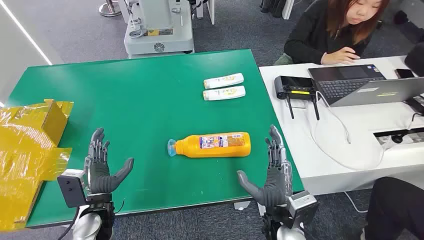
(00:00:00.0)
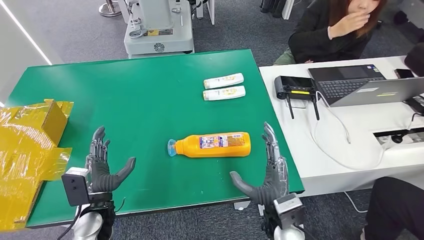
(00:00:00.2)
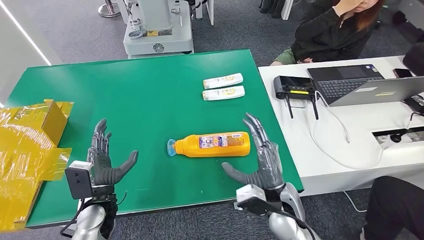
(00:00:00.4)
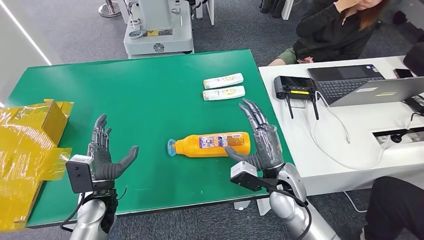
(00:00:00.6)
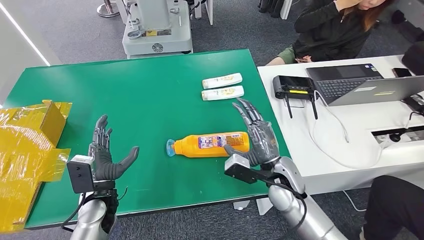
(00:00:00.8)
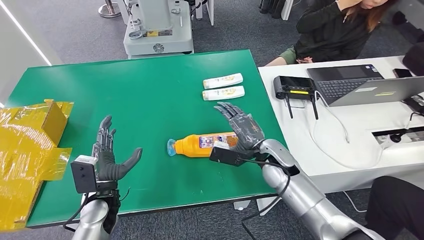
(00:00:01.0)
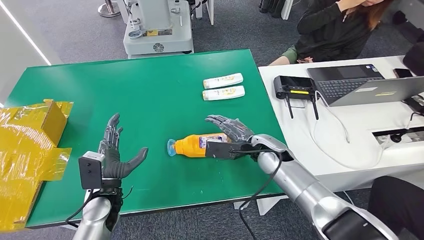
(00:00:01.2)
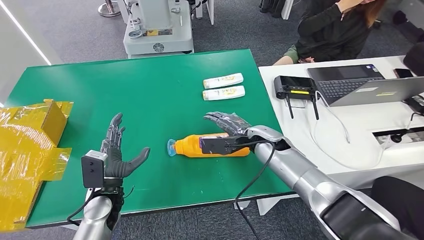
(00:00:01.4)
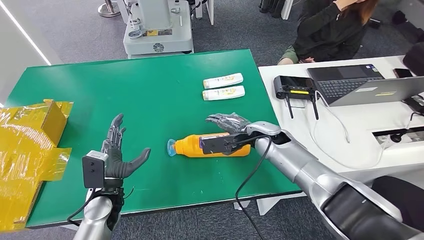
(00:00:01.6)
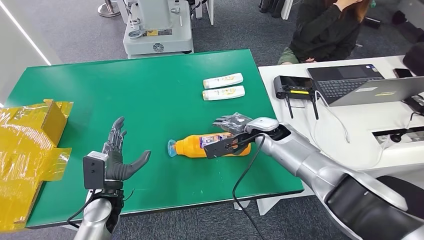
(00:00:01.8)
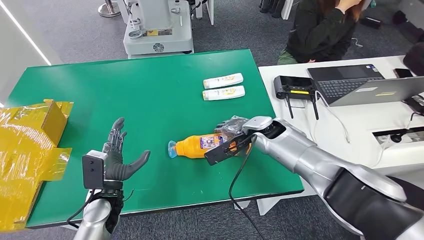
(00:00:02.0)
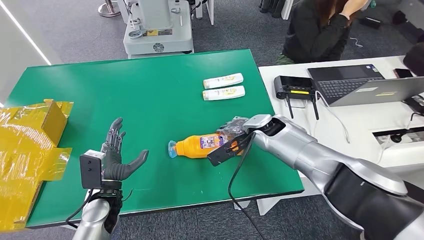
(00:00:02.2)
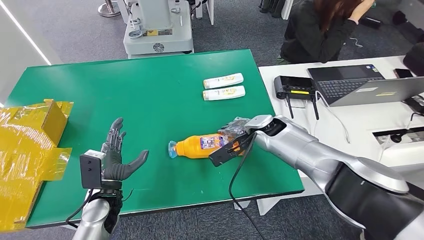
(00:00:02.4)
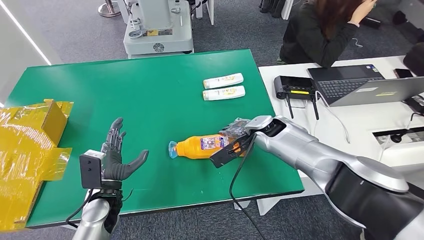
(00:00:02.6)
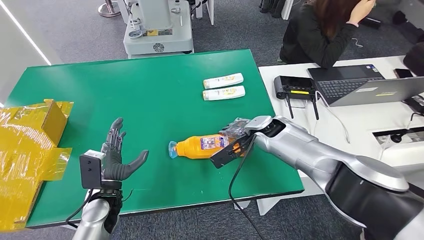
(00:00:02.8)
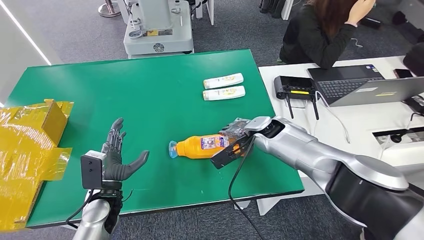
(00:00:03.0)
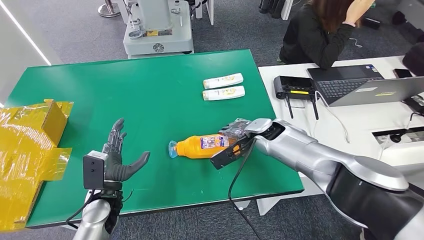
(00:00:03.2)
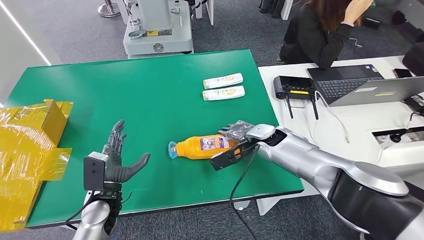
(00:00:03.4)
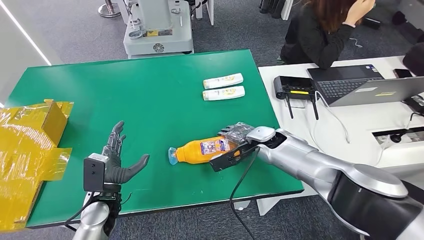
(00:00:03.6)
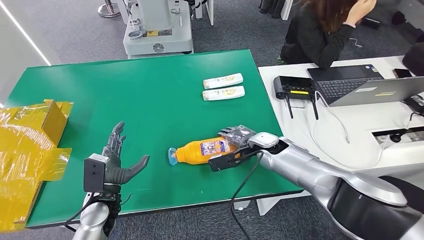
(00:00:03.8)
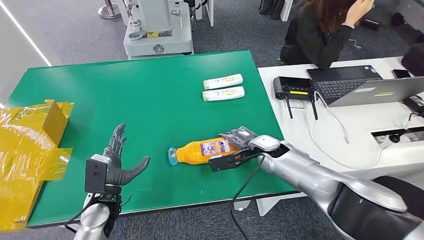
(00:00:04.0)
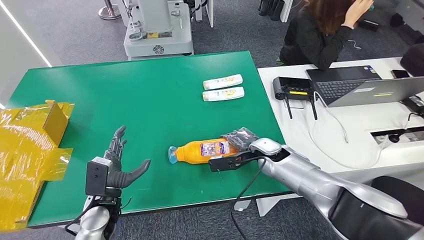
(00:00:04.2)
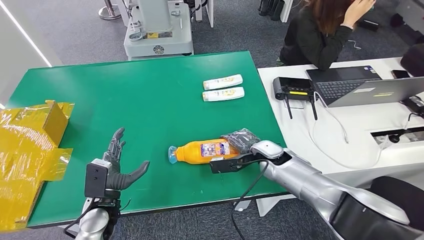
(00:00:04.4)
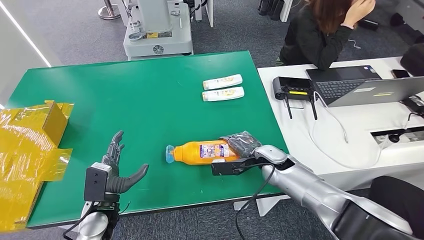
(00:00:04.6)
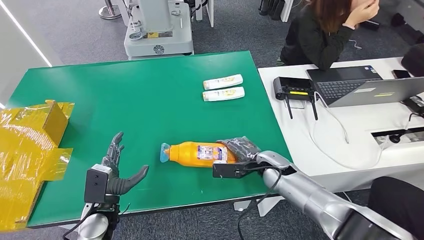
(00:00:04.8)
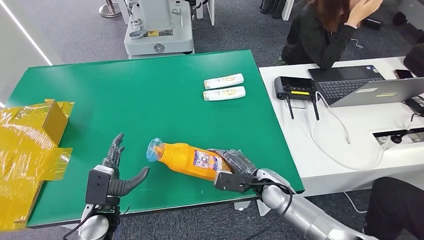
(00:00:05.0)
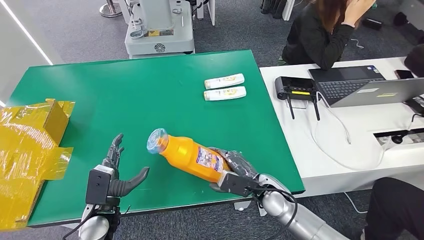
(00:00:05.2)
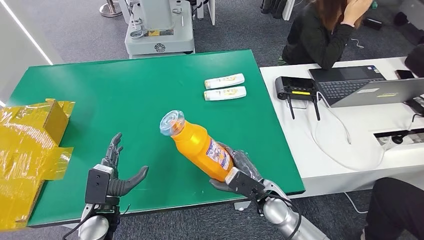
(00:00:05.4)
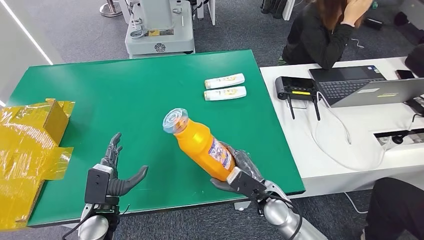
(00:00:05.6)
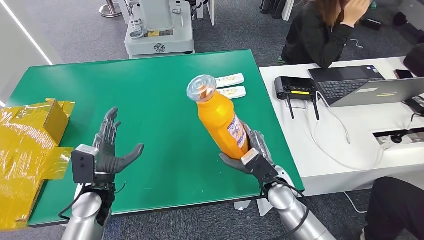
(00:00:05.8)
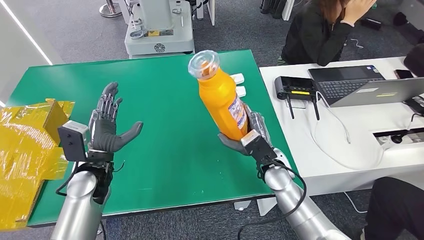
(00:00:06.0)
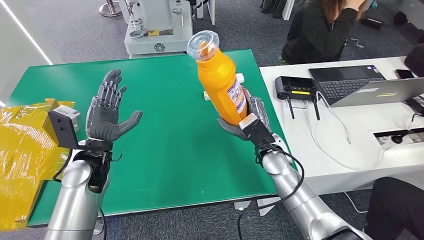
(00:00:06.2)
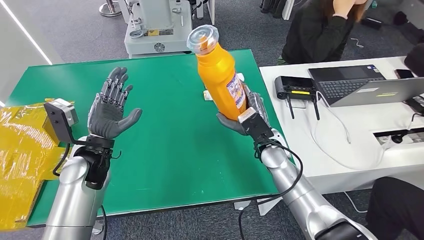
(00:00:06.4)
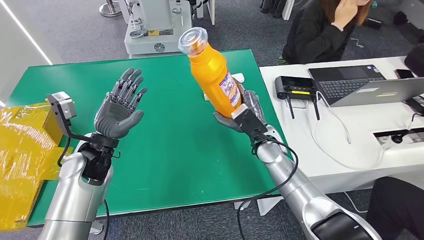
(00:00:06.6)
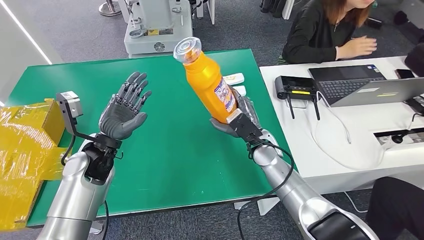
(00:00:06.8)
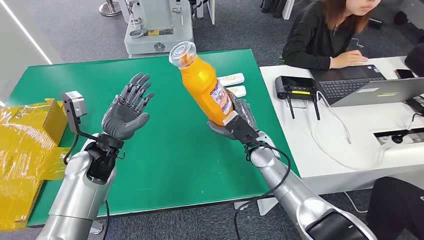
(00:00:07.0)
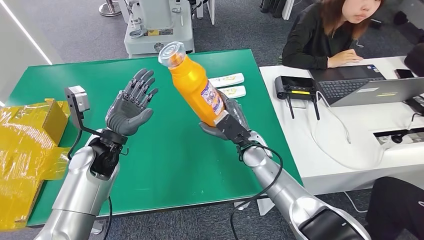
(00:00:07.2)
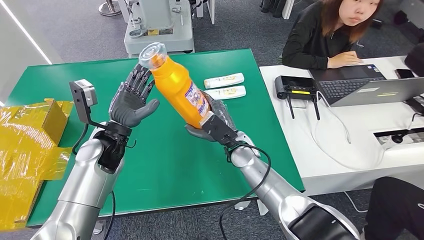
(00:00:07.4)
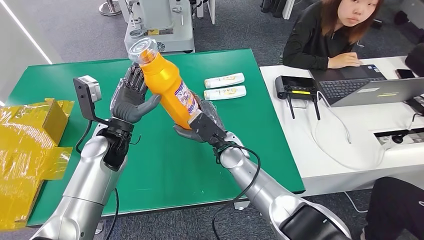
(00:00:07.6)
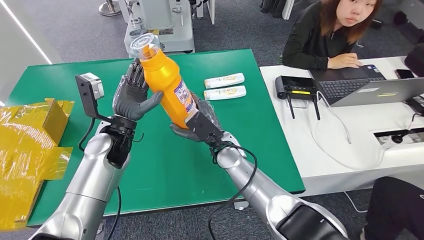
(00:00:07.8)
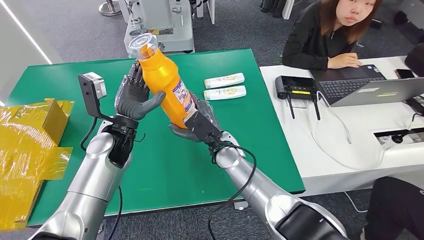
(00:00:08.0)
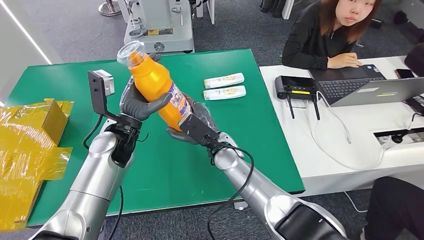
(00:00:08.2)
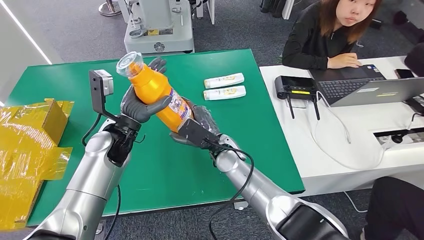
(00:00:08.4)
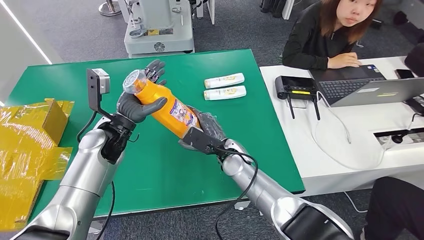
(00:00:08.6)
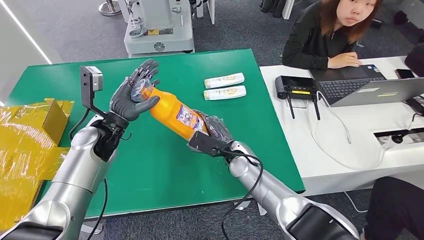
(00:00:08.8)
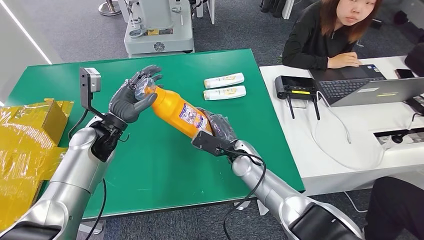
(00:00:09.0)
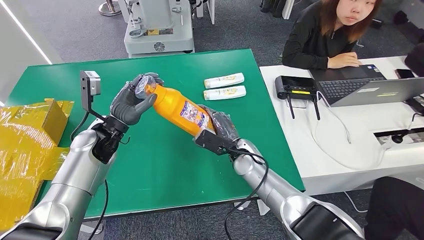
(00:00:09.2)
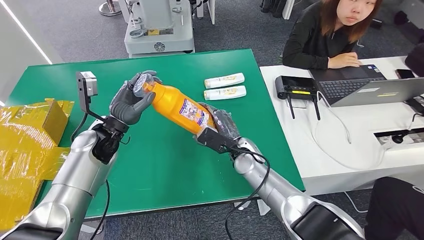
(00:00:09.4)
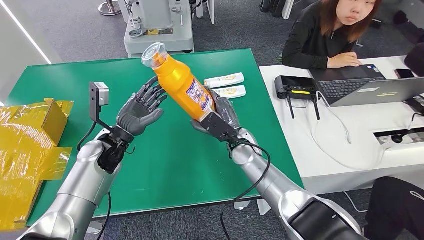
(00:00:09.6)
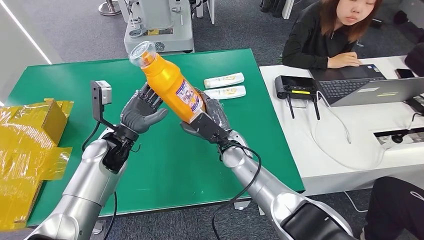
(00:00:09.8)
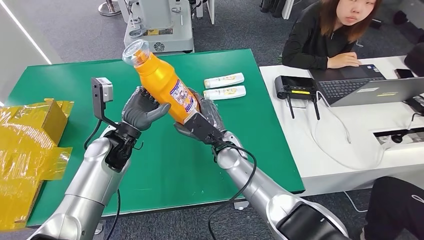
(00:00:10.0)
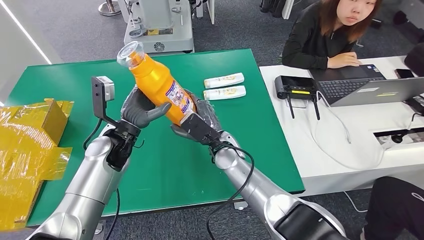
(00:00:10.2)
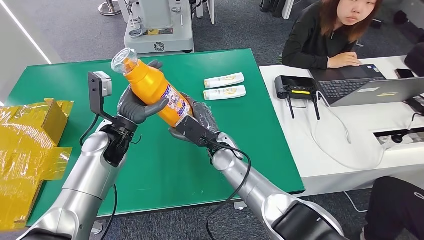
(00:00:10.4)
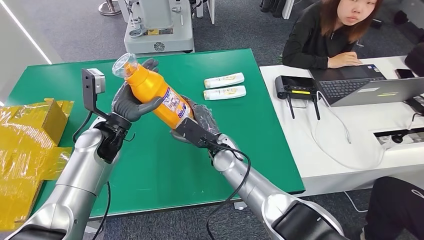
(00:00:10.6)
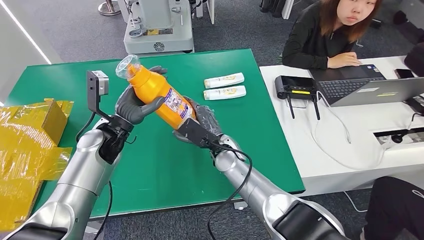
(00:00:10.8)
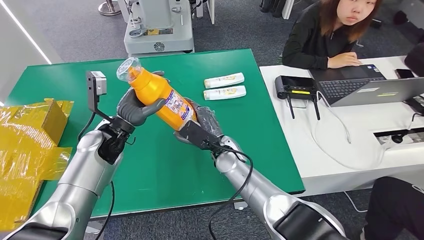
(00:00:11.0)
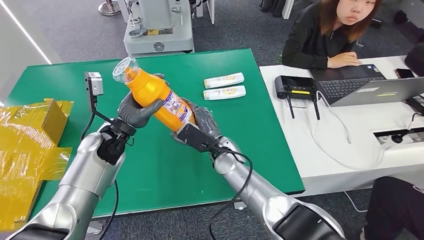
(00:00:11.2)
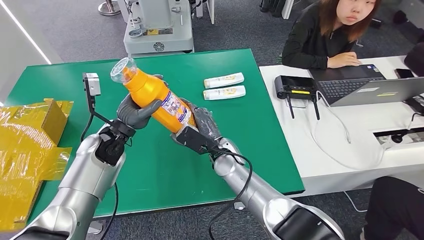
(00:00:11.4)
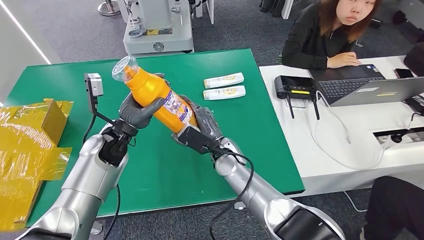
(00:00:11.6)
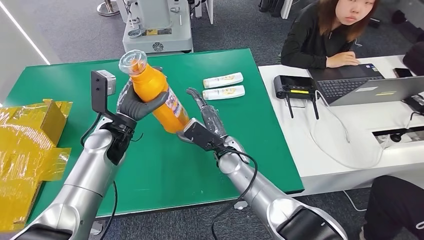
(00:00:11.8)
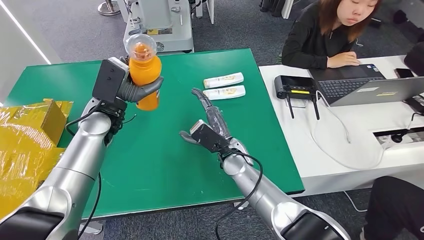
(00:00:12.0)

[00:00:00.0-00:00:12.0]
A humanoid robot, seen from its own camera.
Step, 00:00:00.0 to 00:00:05.2: Pick up the bottle from the table.
00:00:07.6 to 00:00:09.0: The left hand shifts by approximately 5 cm. The right hand shifts by some 5 cm.
00:00:09.0 to 00:00:10.4: The right hand heads to the left, covering approximately 5 cm.
00:00:10.4 to 00:00:12.0: The left hand ends up approximately 5 cm from where it was.

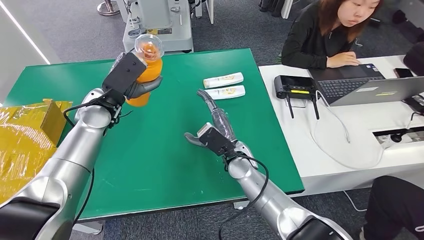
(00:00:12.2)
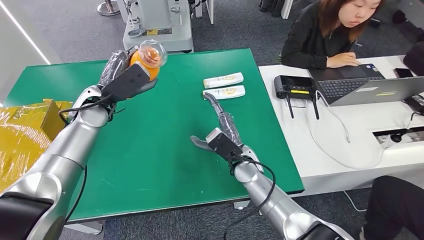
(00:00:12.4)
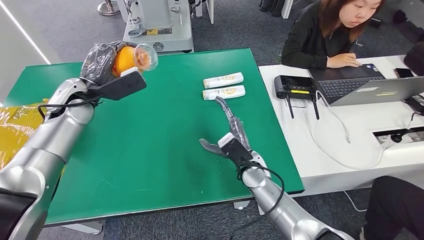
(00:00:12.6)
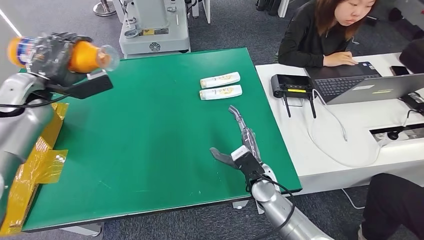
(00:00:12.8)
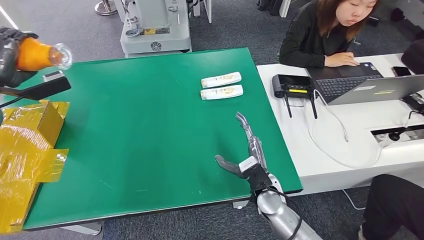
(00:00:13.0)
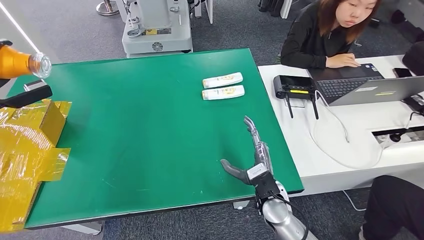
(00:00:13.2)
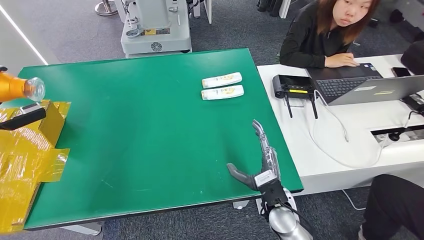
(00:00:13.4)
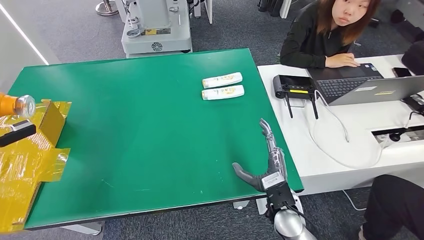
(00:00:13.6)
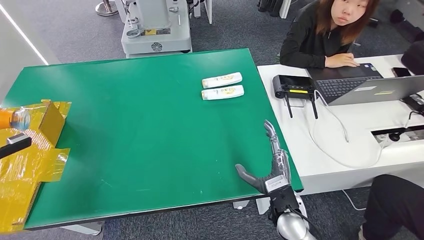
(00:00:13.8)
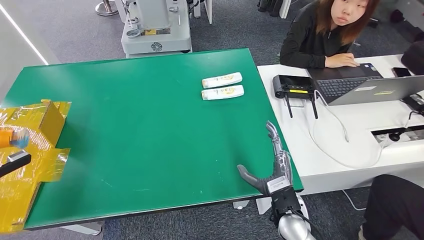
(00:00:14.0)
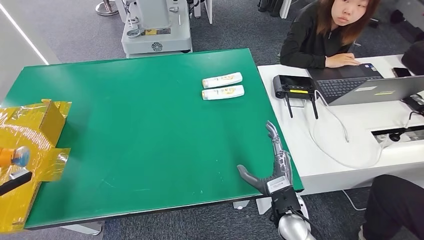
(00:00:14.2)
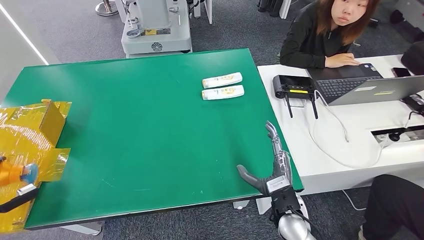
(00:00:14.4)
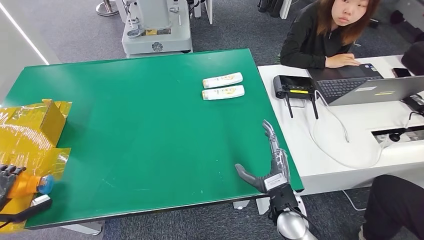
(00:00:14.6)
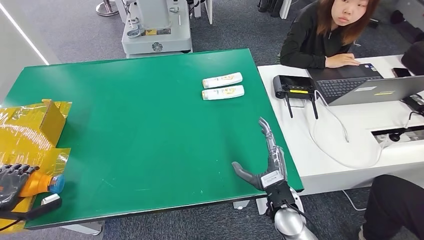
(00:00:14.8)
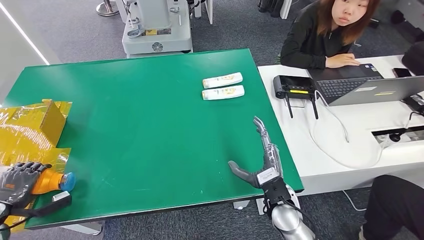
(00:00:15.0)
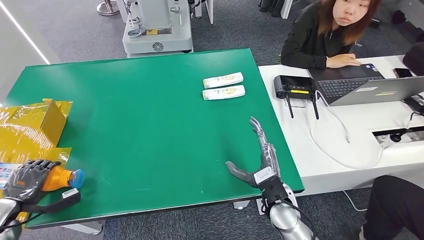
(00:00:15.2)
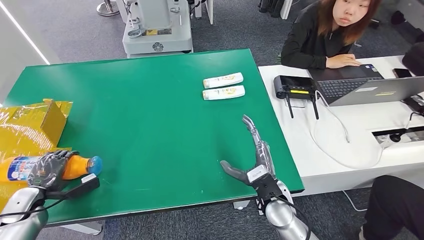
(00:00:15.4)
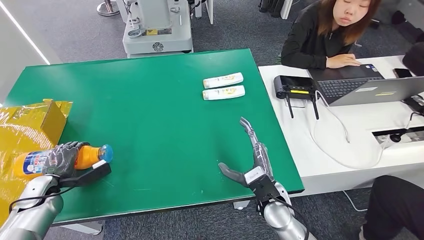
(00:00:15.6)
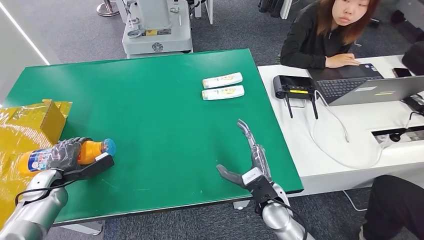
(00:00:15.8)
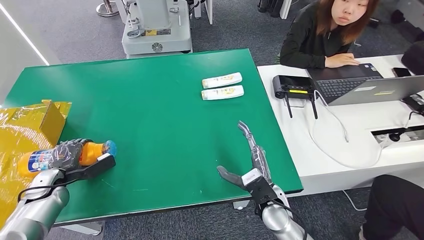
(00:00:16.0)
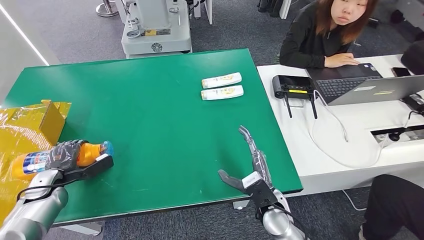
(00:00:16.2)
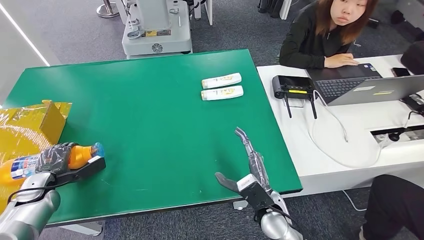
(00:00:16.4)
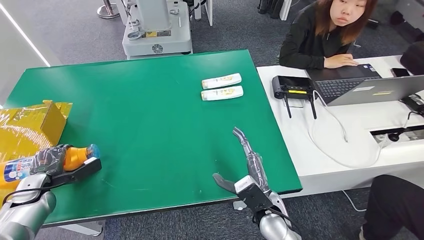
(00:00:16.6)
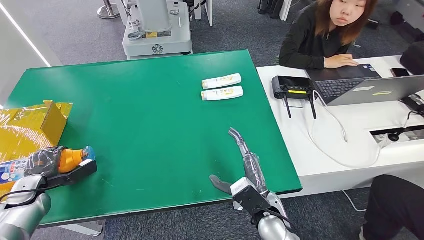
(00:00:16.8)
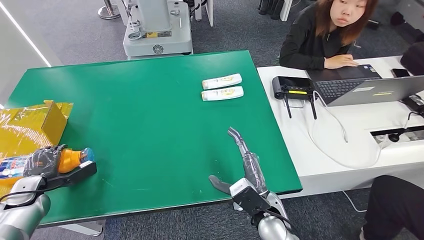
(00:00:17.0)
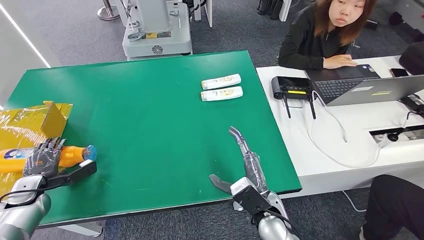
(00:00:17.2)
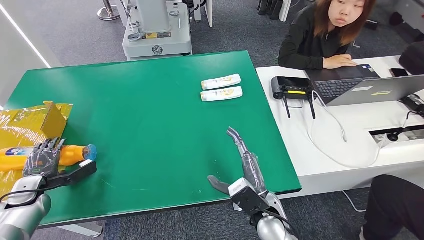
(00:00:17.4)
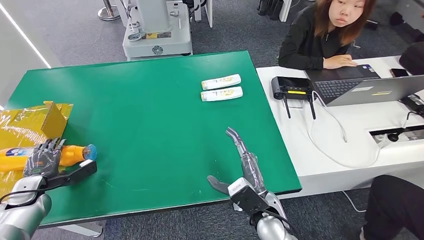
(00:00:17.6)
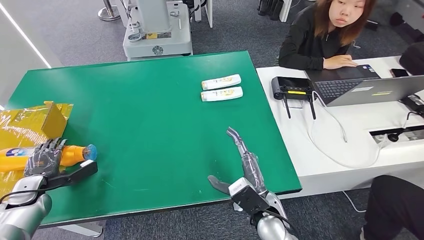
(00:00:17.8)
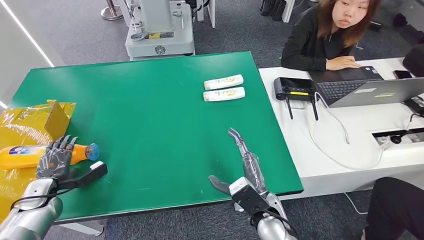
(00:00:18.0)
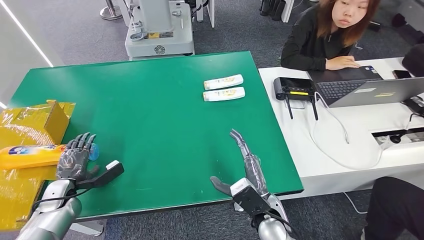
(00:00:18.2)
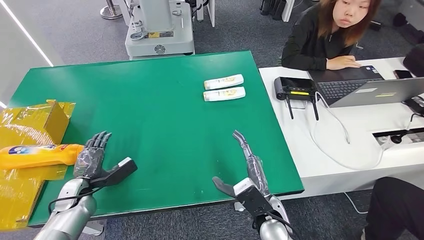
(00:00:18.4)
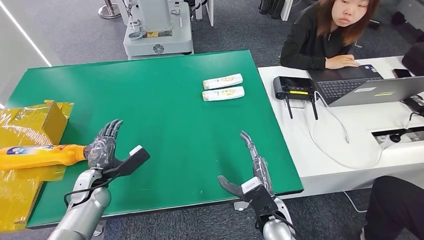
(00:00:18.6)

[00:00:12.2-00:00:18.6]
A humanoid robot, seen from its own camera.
Step, 00:00:12.2 to 00:00:18.6: Turn the bottle to the front side.
00:00:13.8 to 00:00:15.4: The left hand heads downward and to the right, covering some 20 cm.
00:00:17.0 to 00:00:18.6: The left hand goes roughly 20 cm to the right.
